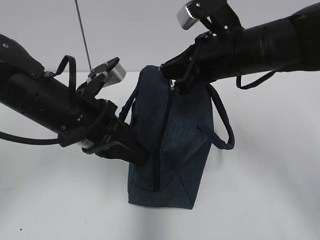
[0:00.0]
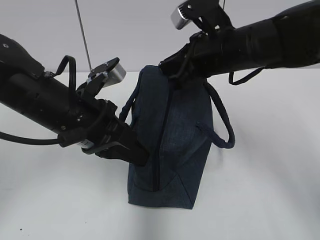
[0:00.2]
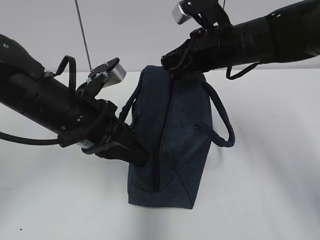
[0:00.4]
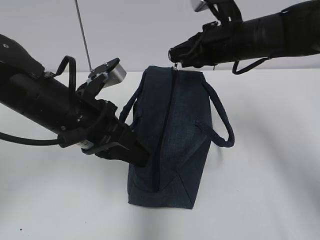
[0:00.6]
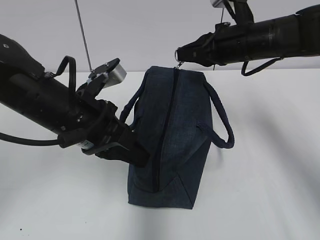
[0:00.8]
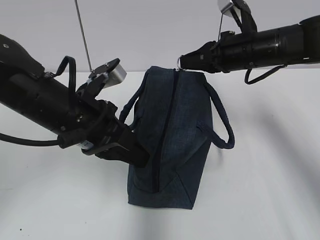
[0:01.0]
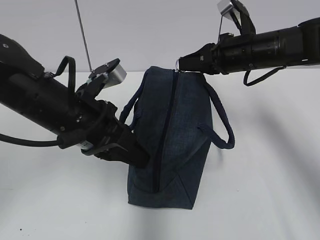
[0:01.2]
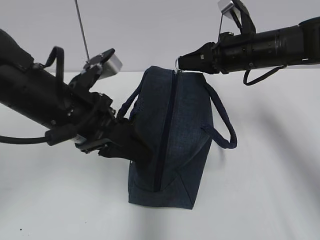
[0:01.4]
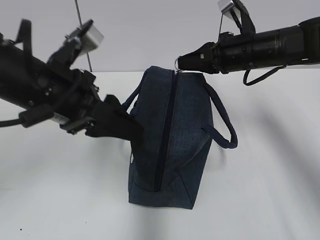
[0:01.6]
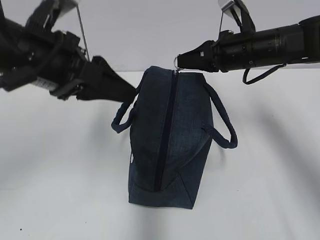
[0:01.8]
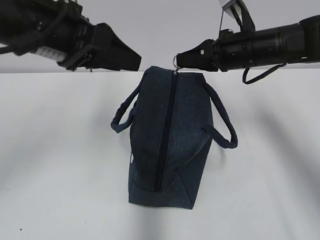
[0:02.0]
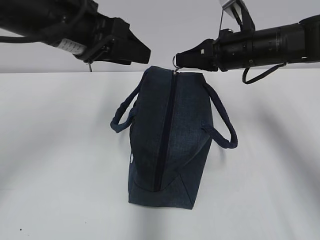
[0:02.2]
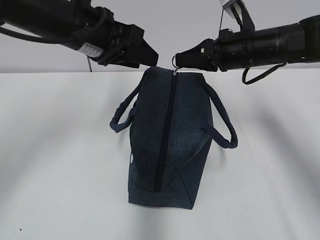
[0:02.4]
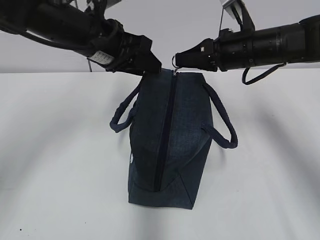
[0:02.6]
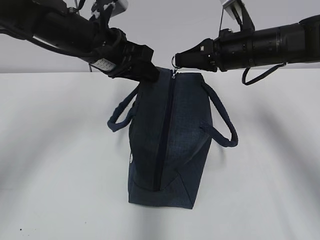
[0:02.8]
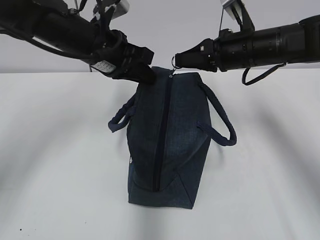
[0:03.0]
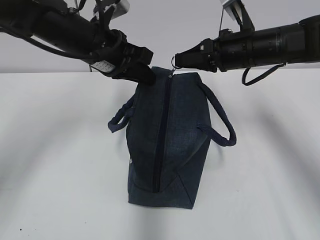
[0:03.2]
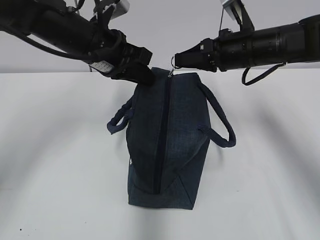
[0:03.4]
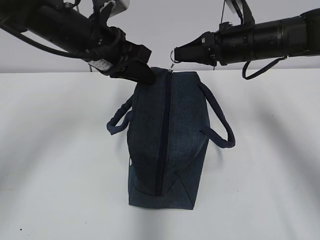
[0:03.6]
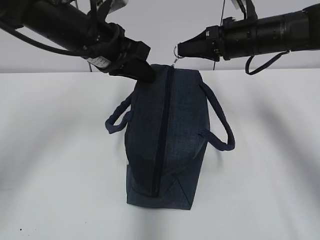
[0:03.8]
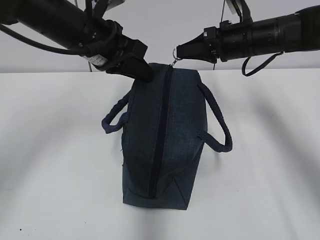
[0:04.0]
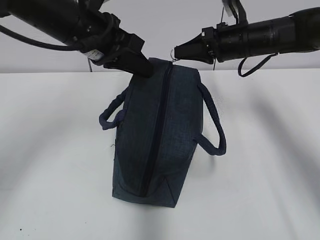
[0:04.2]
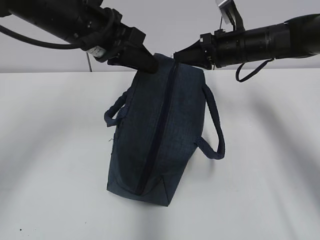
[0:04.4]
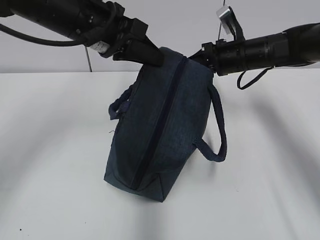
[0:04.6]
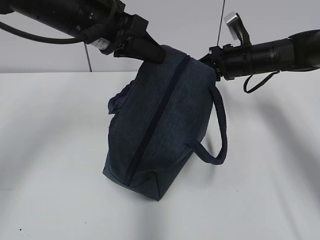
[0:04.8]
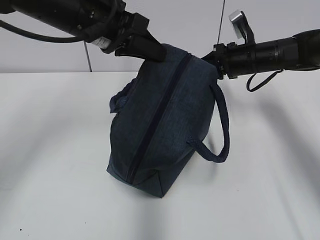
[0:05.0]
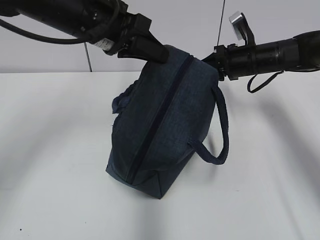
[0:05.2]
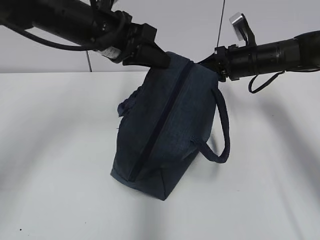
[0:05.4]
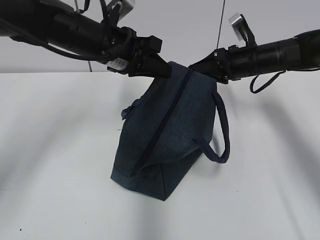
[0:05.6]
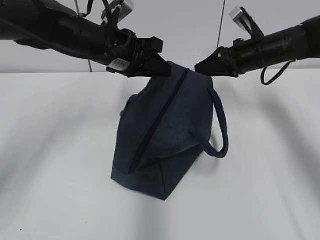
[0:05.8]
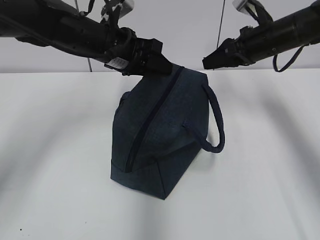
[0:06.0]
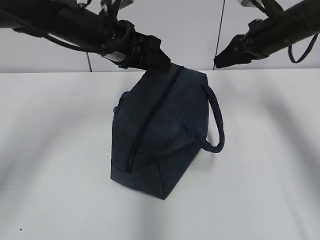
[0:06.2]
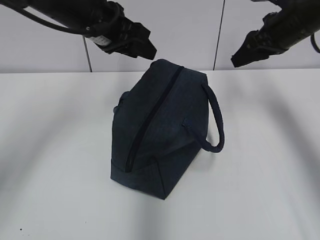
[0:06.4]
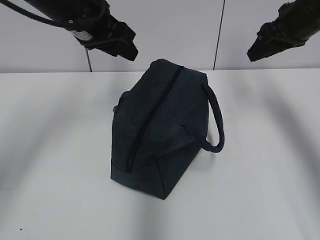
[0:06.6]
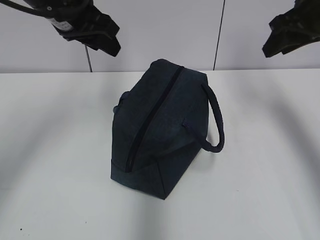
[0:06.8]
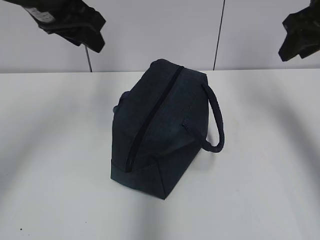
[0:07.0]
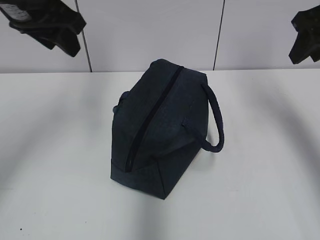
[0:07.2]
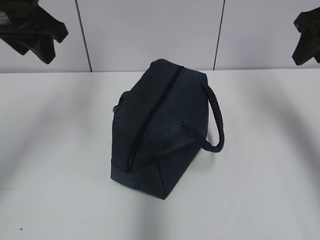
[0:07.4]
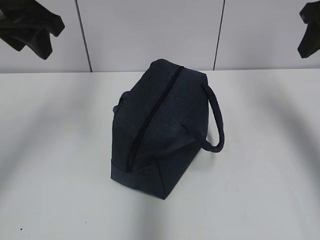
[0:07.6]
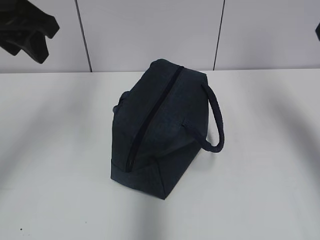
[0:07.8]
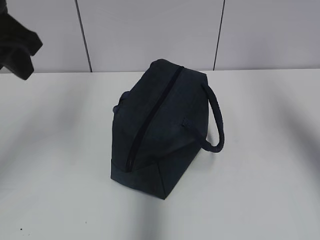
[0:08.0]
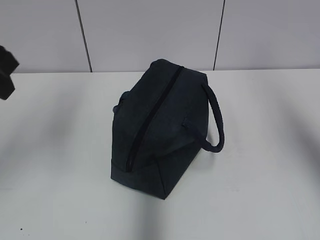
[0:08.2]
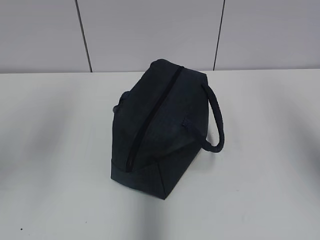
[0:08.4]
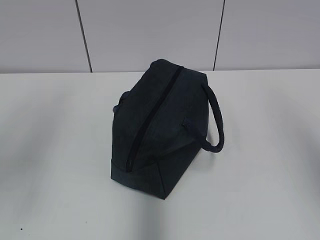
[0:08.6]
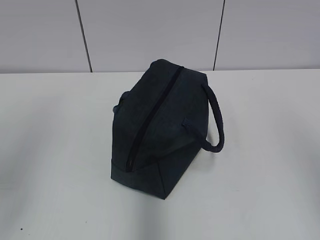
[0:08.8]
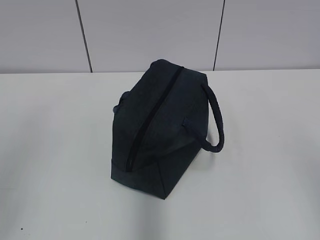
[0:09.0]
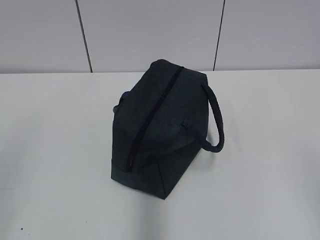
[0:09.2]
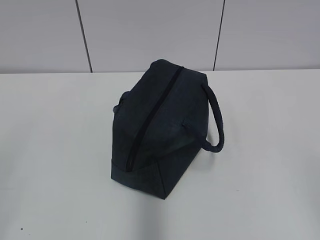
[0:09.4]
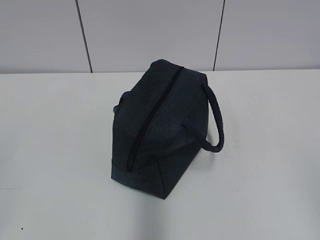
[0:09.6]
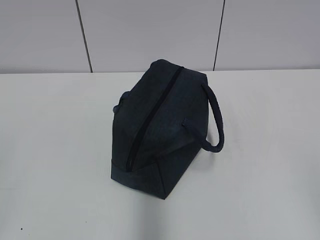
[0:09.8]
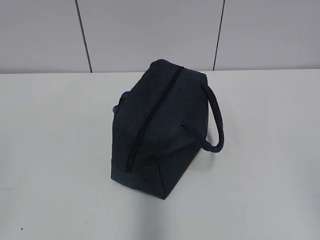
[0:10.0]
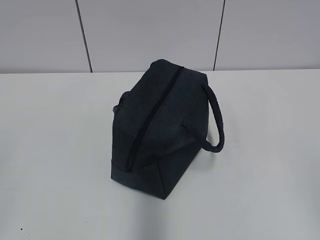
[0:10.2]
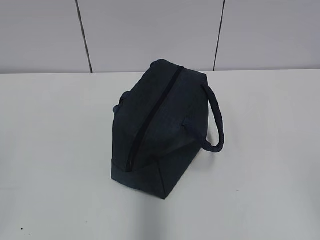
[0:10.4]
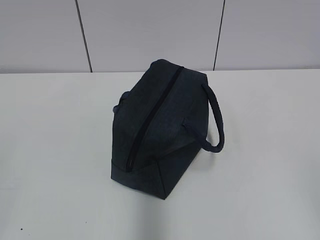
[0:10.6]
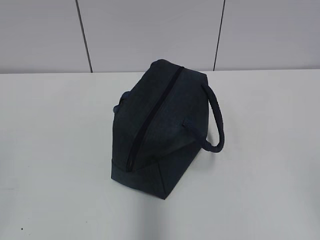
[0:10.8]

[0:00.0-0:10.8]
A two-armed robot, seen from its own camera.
Step, 0:00.0 to 0:05.2: Pull the zipper with your right hand.
Step, 0:05.4 to 0:06.0: Grab the lunch bag with your left hand.
0:00.0 to 0:01.6: The left gripper moves upward, some 5 cm, and opens. Meanwhile the right gripper moves forward and to the right, roughly 10 cm.
0:01.6 to 0:03.0: The left gripper travels forward by some 10 cm, and closes its fingers.
0:03.0 to 0:04.6: The left gripper ends up approximately 5 cm from where it was. The right gripper travels forward by about 5 cm.
0:04.6 to 0:06.2: The left gripper heads forward, covering about 5 cm, and opens its fingers. The right gripper is displaced upward by about 5 cm, and opens.
0:06.2 to 0:07.8: The right gripper moves backward and upward, approximately 20 cm. The left gripper goes some 15 cm to the left, upward and backward.
0:07.8 to 0:09.2: The right gripper heads backward and downward, covering some 30 cm; the left gripper shifts about 25 cm backward.

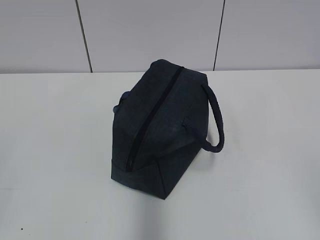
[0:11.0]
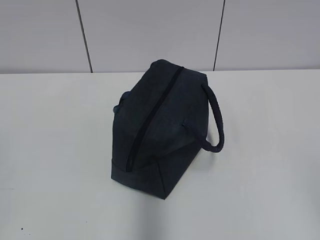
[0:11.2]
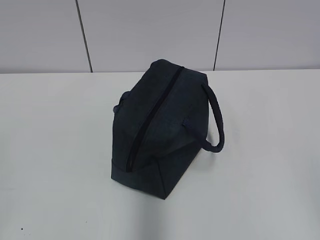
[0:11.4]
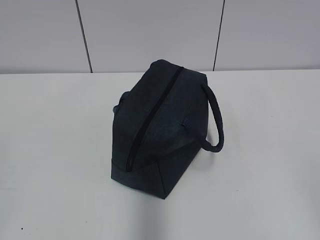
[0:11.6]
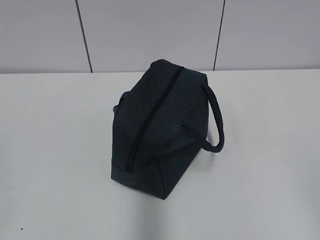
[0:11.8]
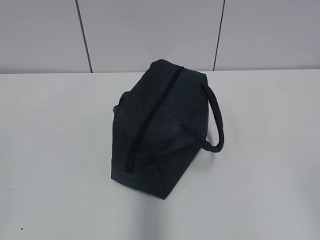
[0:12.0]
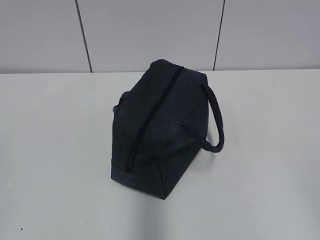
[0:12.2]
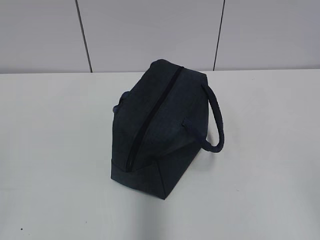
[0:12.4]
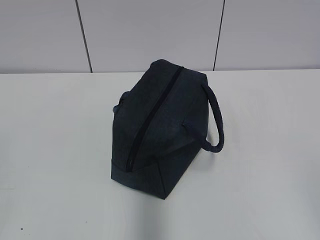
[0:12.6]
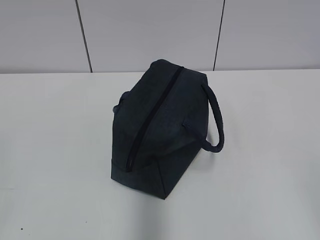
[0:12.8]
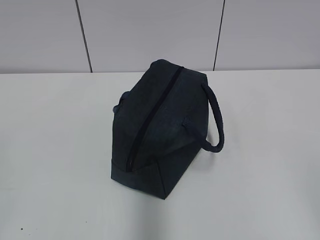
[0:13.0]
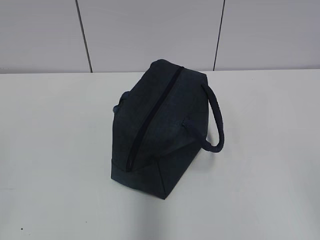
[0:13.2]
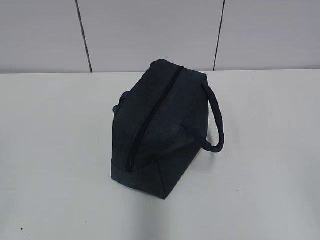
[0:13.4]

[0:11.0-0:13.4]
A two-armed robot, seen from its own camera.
0:12.2 to 0:13.4: Neither gripper changes place.
